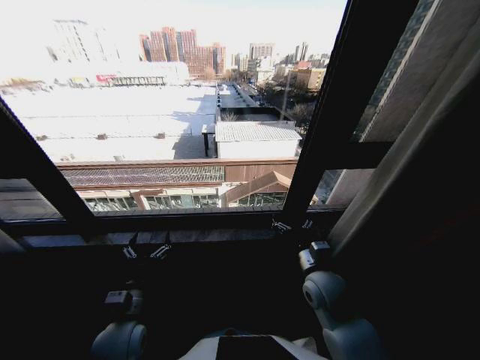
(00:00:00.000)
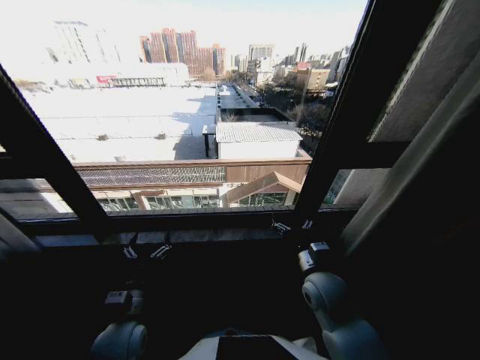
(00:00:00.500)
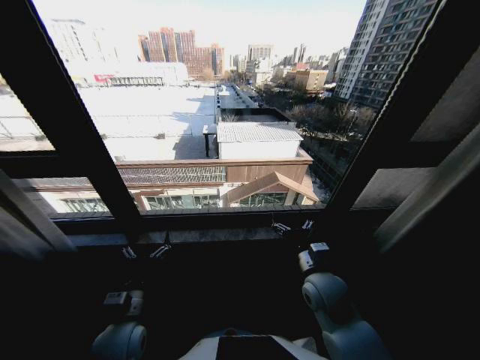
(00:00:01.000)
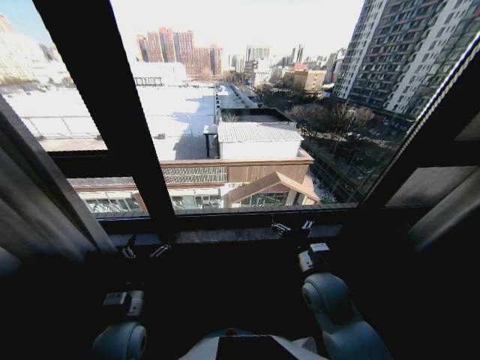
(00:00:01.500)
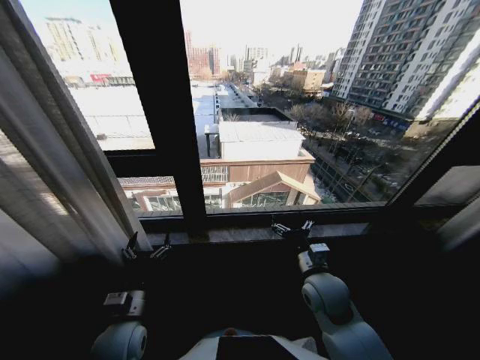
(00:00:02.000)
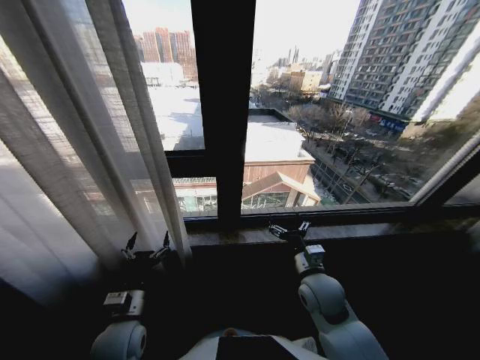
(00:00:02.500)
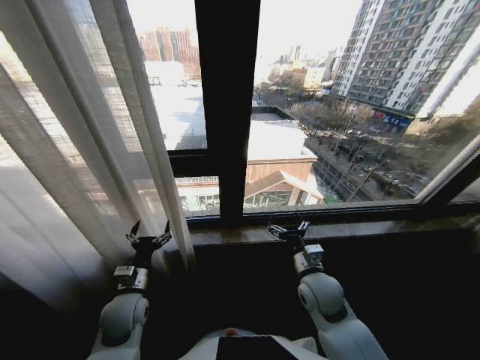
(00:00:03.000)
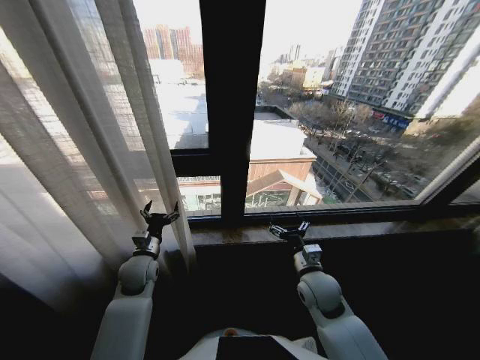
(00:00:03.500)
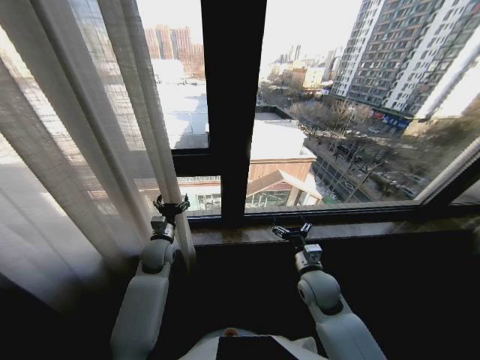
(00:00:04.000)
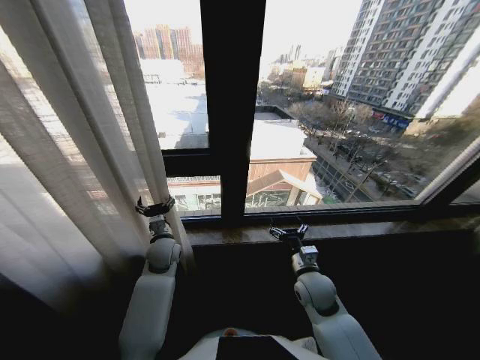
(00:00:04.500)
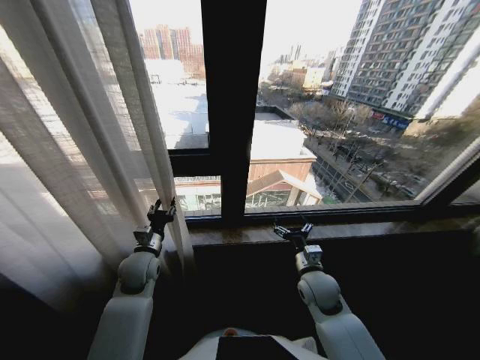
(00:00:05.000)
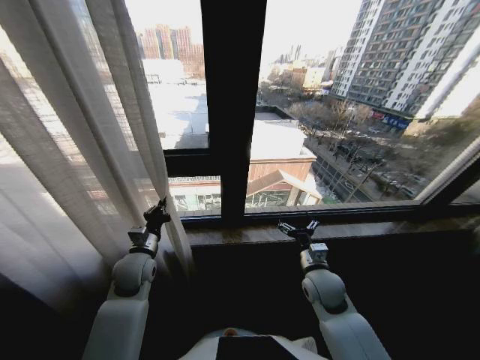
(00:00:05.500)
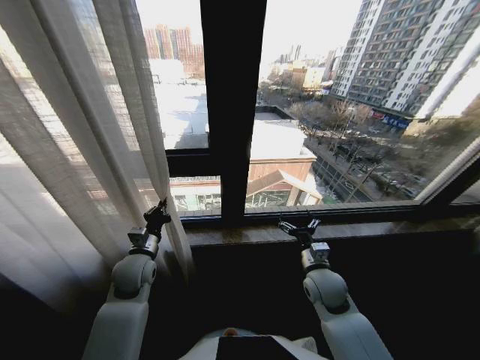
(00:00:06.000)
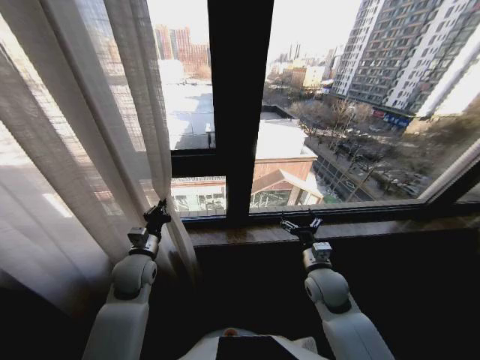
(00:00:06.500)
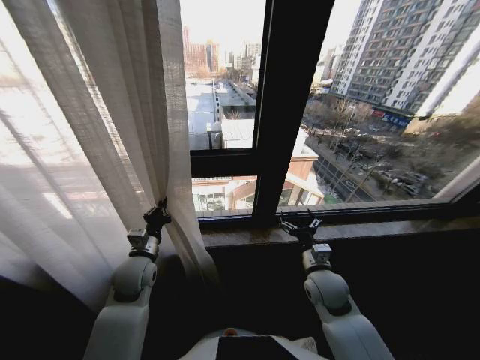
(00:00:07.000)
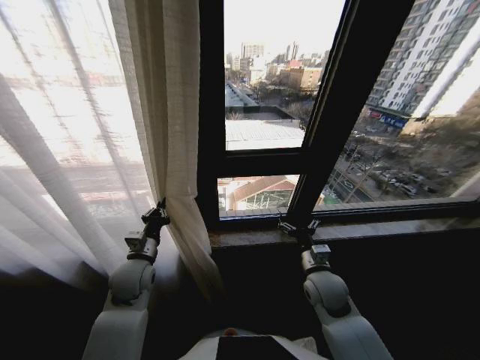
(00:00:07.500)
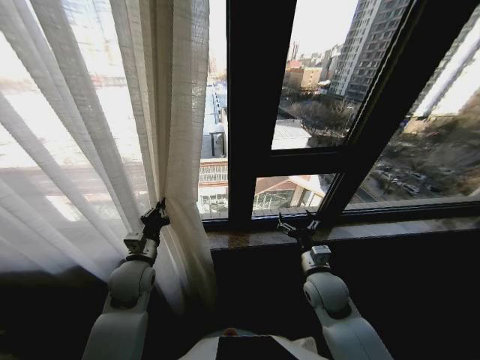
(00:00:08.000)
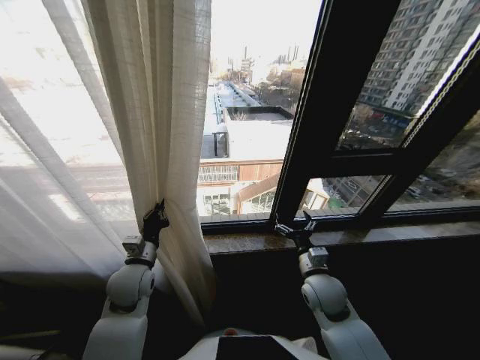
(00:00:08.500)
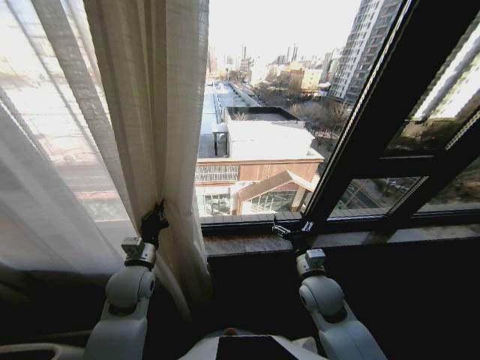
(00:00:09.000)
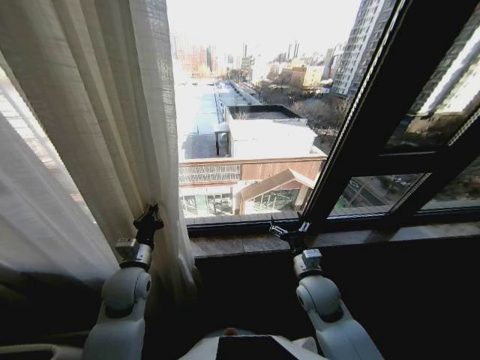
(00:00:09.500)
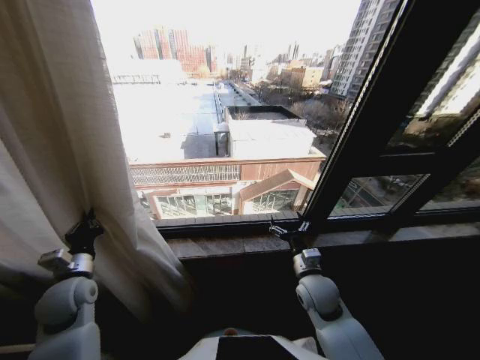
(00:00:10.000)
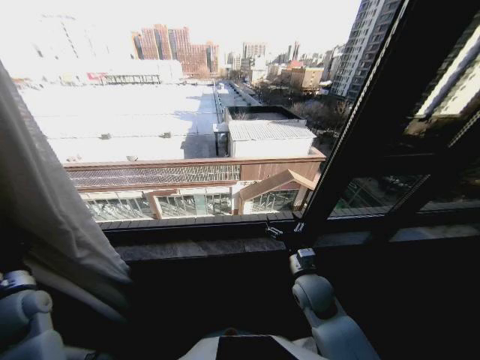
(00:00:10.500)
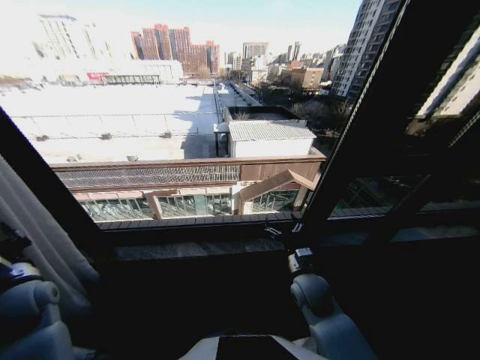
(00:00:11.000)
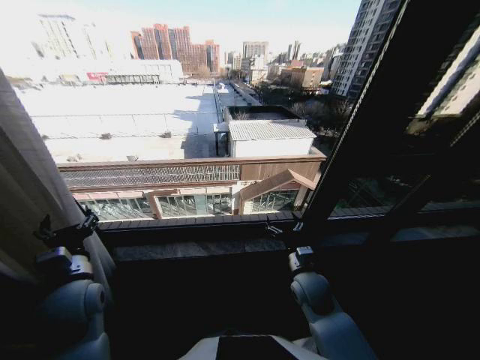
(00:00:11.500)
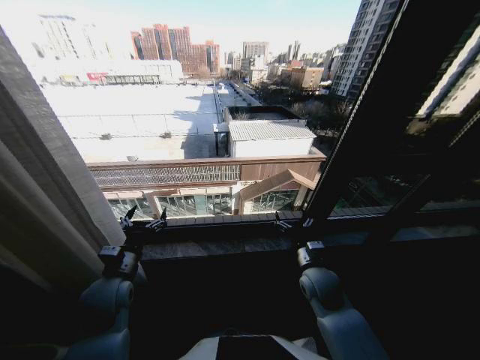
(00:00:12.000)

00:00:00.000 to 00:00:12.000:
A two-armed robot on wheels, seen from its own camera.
Task of the whole recording: Open the curtains by pulling them apart, changing their state from closed to fully open.
00:00:02.000 to 00:00:04.000: The right gripper shifts by approximately 5 cm. Meanwhile the left gripper is displaced forward by approximately 20 cm.
00:00:04.000 to 00:00:06.000: The left gripper is displaced backward by about 5 cm, and closes.
00:00:08.000 to 00:00:10.000: The left gripper is displaced to the left by approximately 15 cm.
00:00:10.000 to 00:00:12.000: The left gripper heads to the right, covering about 10 cm, and opens its fingers.
